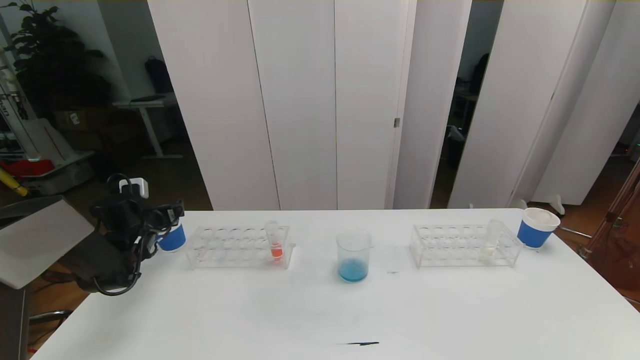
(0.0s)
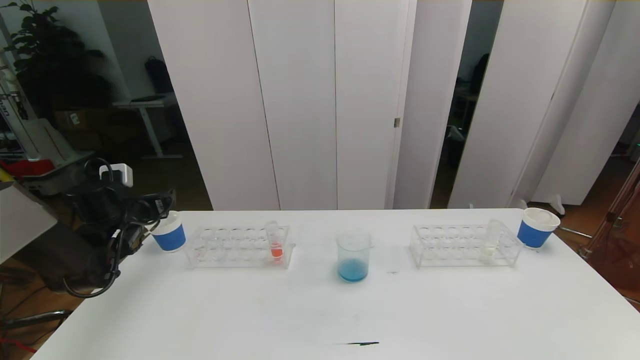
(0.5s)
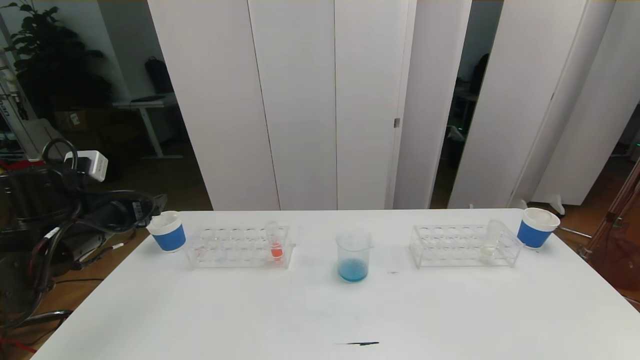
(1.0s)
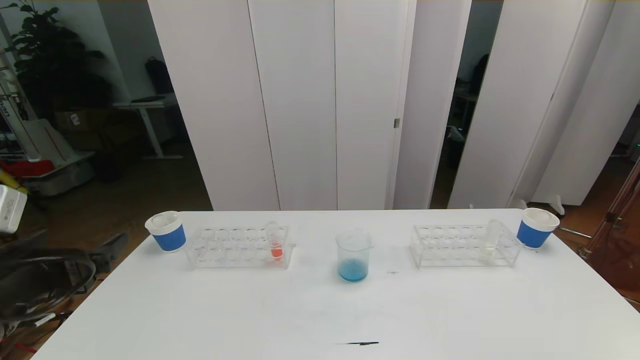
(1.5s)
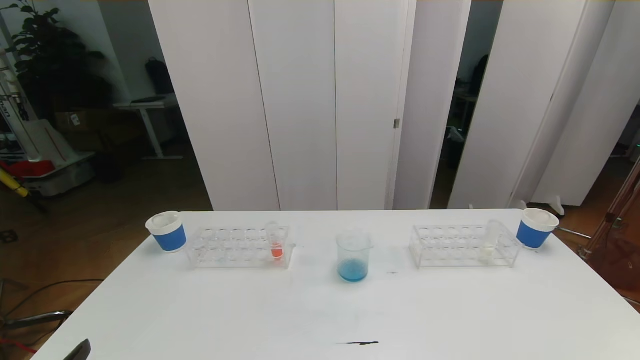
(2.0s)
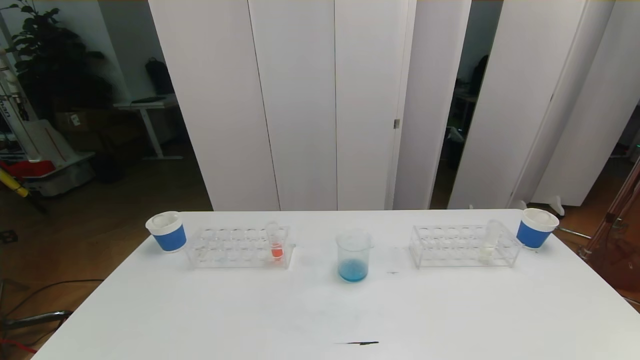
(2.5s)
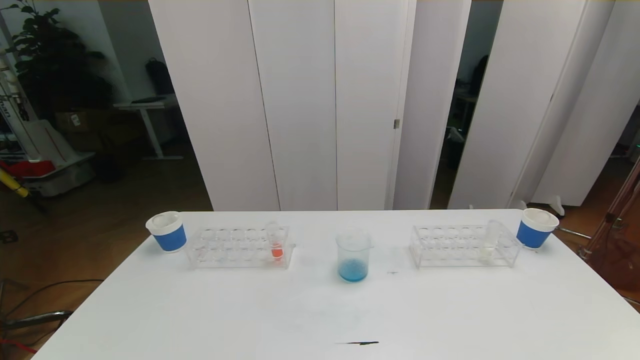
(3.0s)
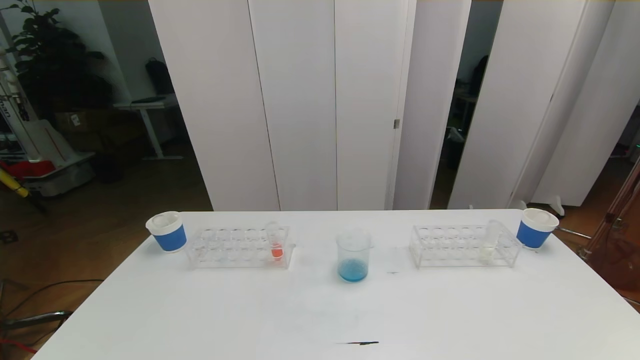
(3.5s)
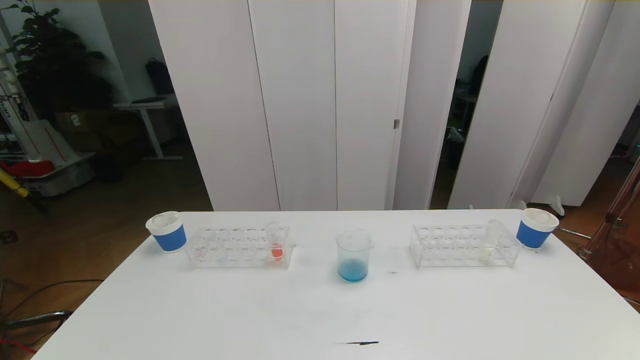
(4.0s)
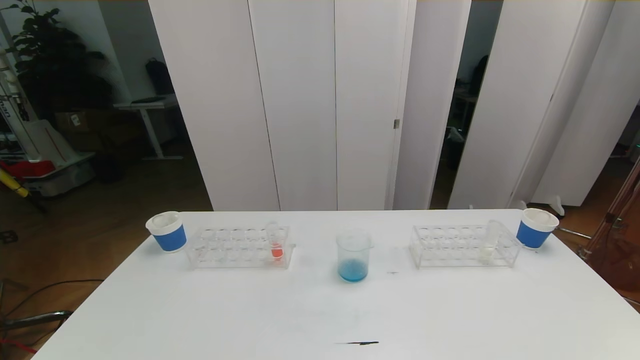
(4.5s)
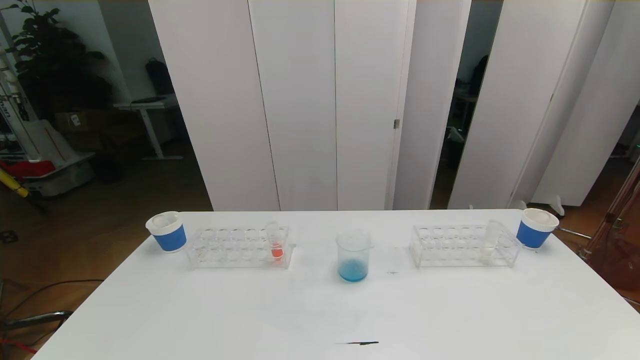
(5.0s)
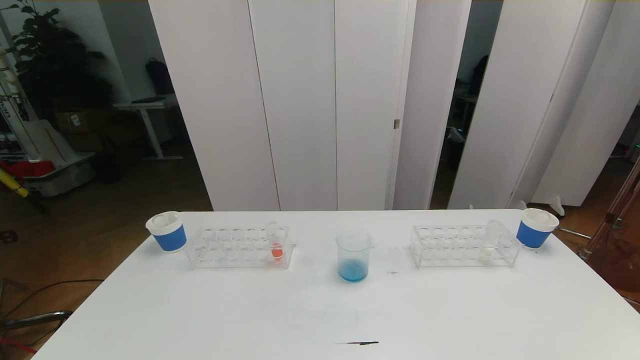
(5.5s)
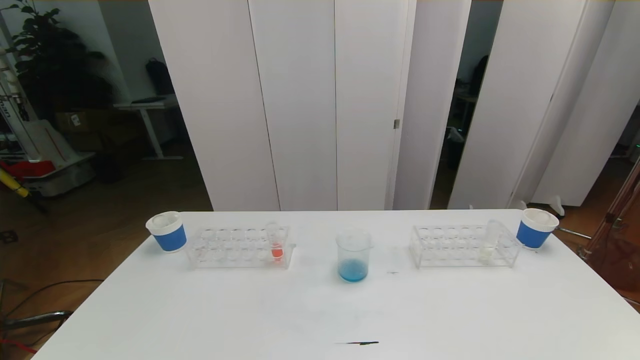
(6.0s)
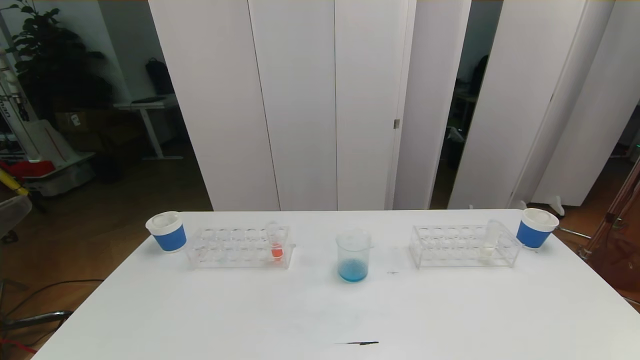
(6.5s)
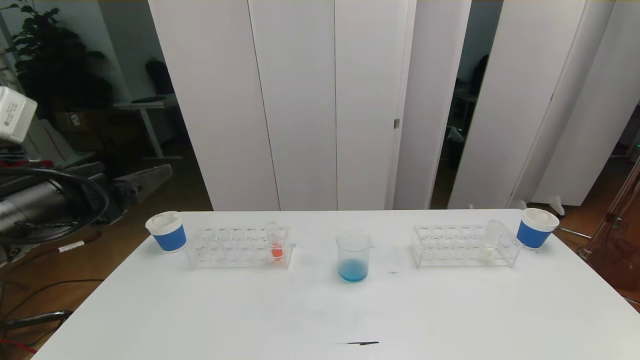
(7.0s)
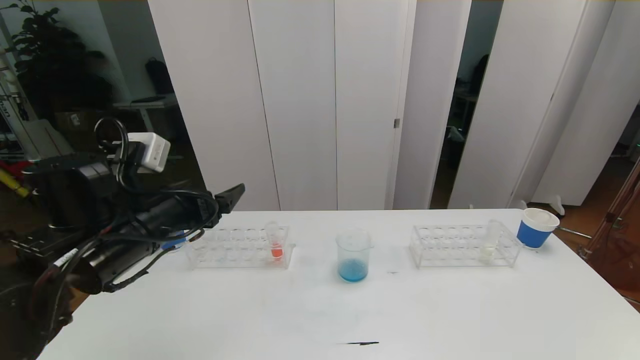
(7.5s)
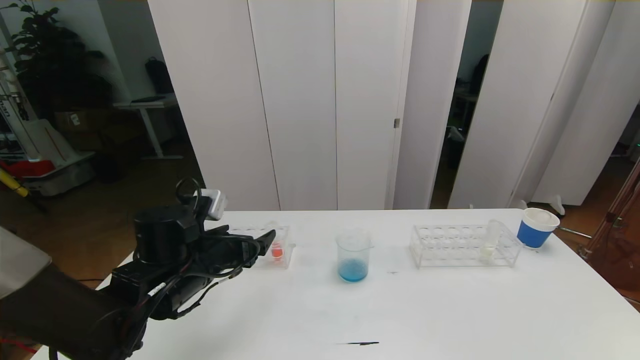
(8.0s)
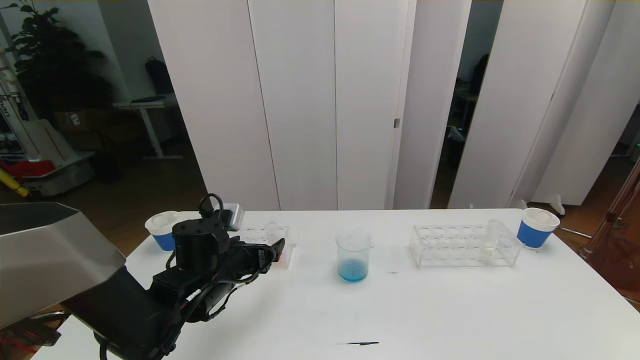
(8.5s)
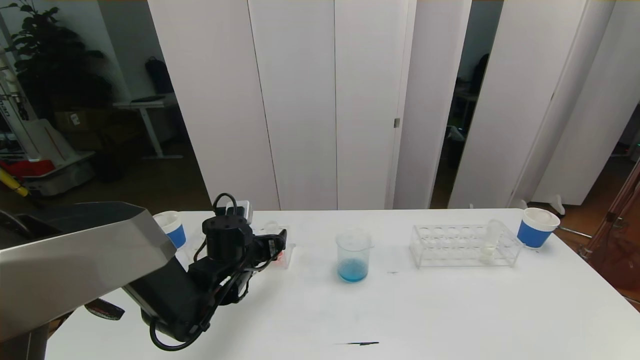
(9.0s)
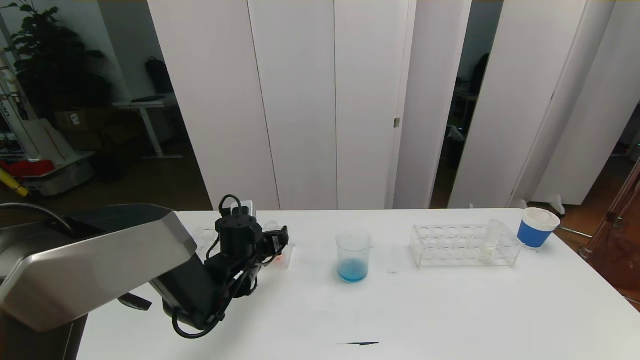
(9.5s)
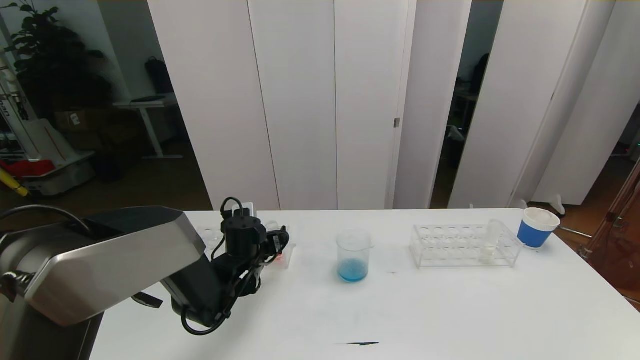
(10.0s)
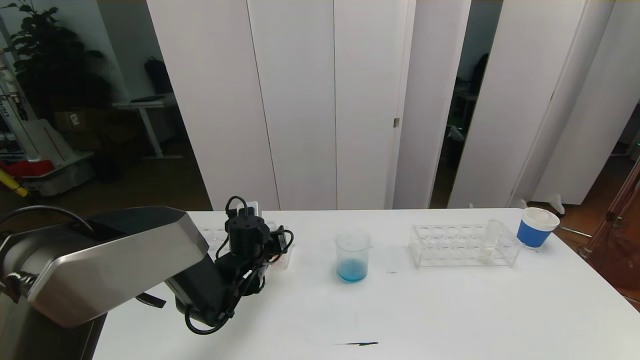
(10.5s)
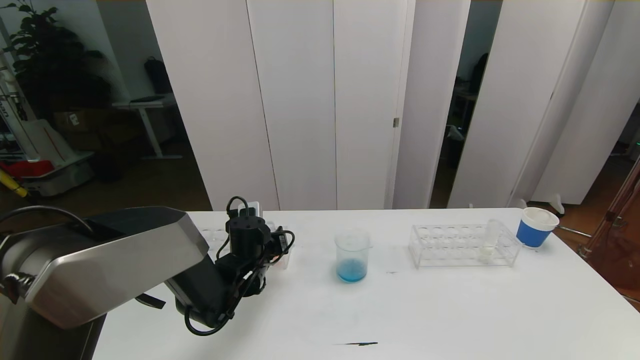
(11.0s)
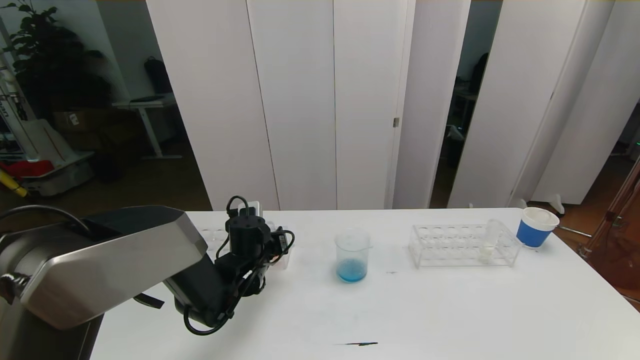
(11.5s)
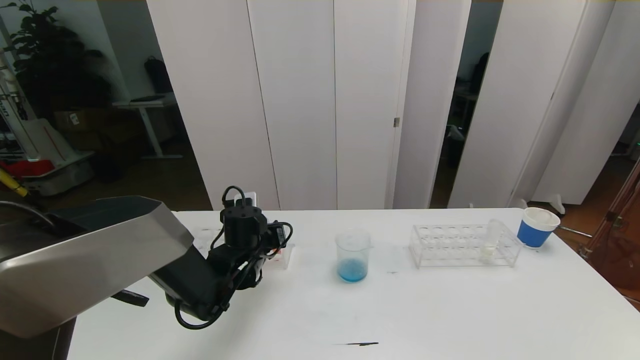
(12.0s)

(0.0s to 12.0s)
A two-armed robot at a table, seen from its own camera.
Task of the whole recording: pick up the test tube with red pigment the test tube with blue pigment and the test tube with white pigment by grippers and pour them into the beaker.
Step, 0.0s - 4.0s: Pour the blue reagent into the graduated cylinder and place the test tube into the paper cup.
0.0s - 2.0s: The left gripper travels backward by approximately 40 cm.
6.0s - 8.0s: The left gripper shifts some 30 cm forward.
8.0s - 10.0s: The left gripper shifts approximately 15 cm forward and downward.
10.0s - 12.0s: The left gripper closes.

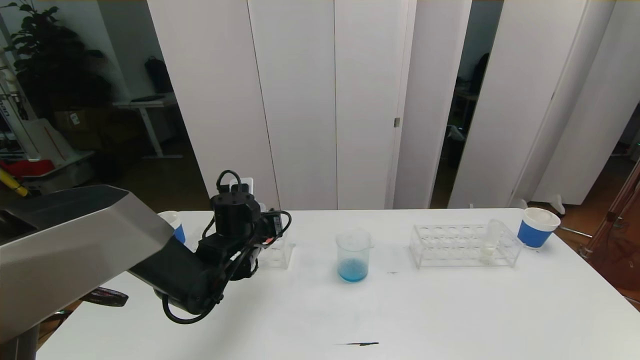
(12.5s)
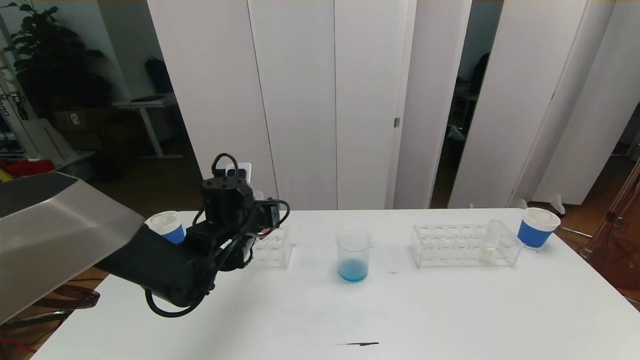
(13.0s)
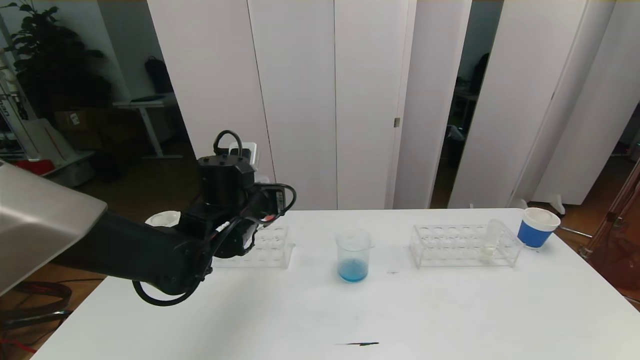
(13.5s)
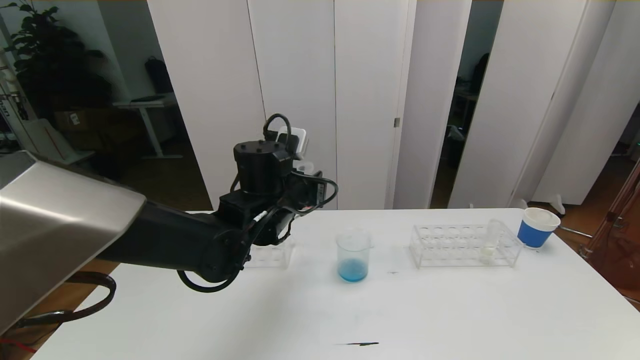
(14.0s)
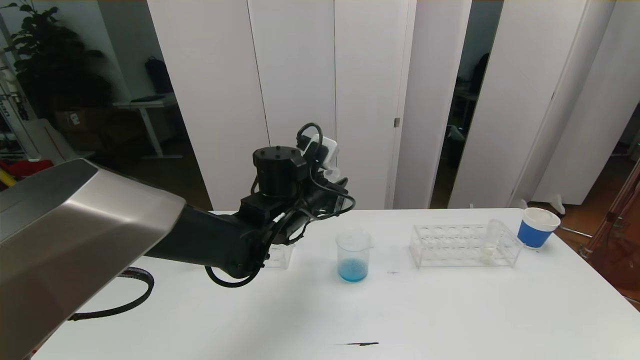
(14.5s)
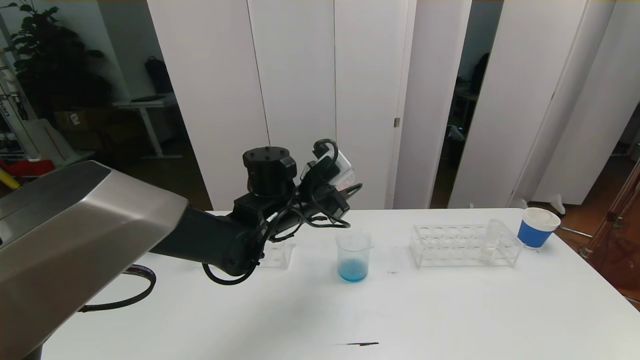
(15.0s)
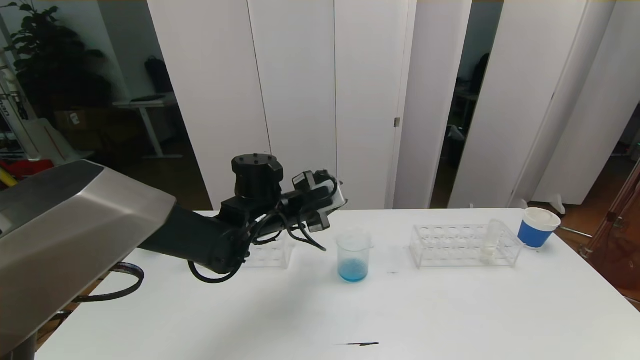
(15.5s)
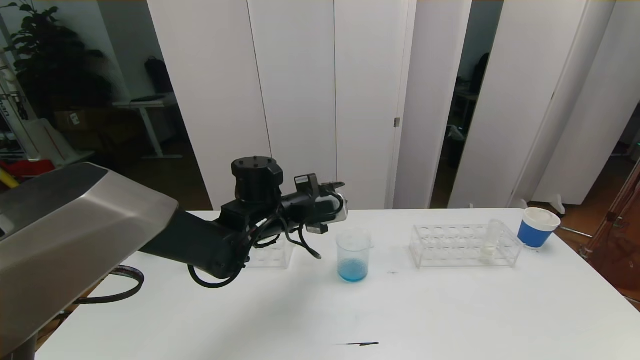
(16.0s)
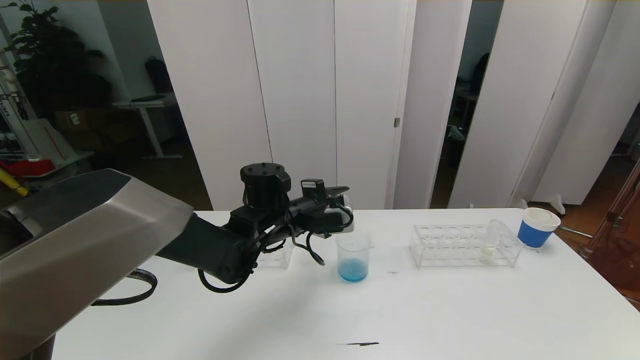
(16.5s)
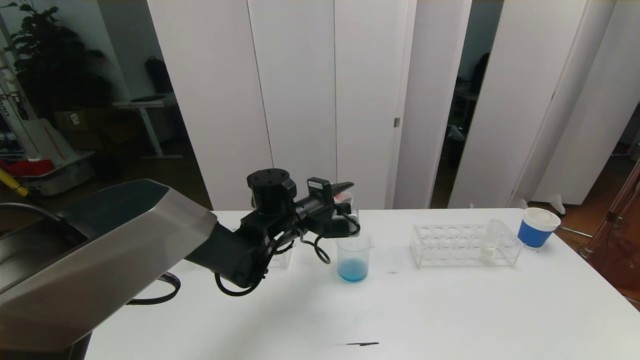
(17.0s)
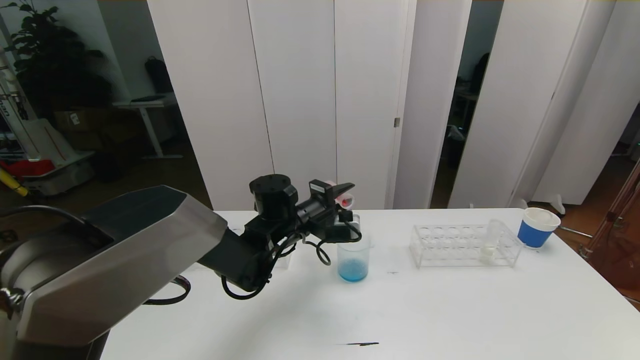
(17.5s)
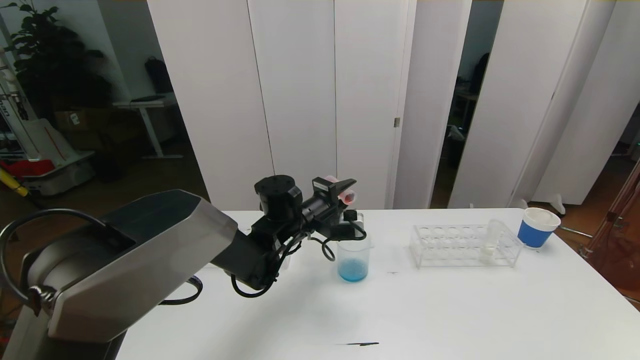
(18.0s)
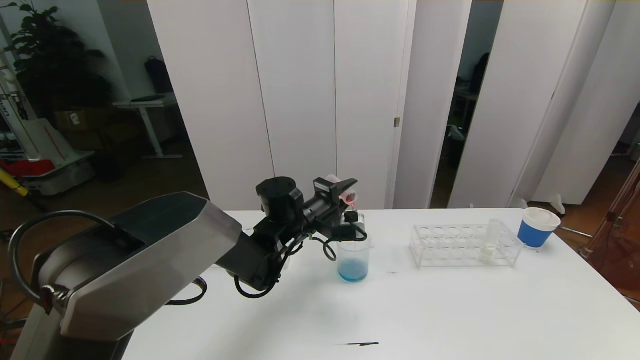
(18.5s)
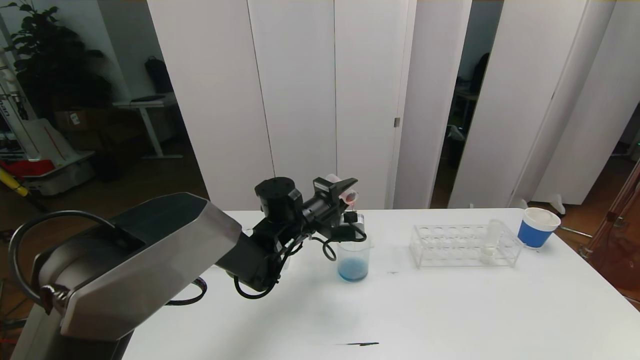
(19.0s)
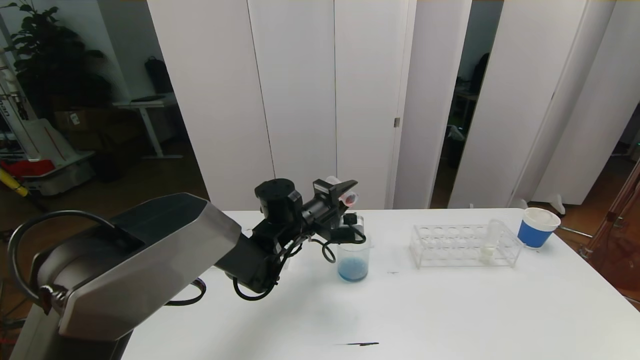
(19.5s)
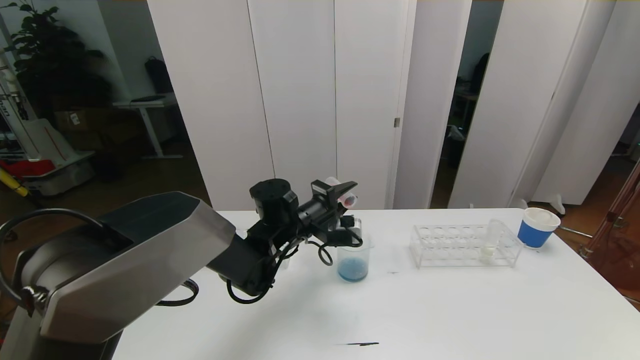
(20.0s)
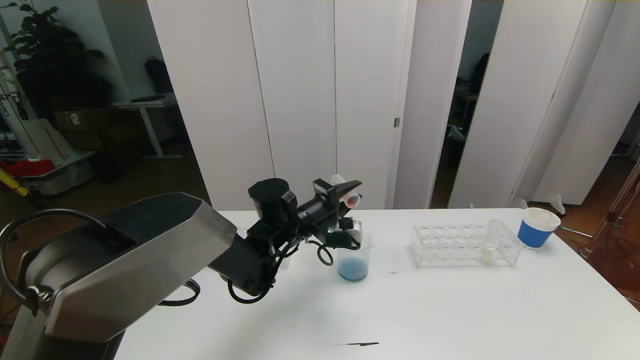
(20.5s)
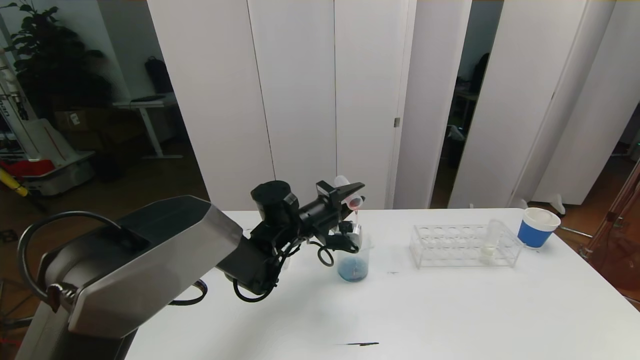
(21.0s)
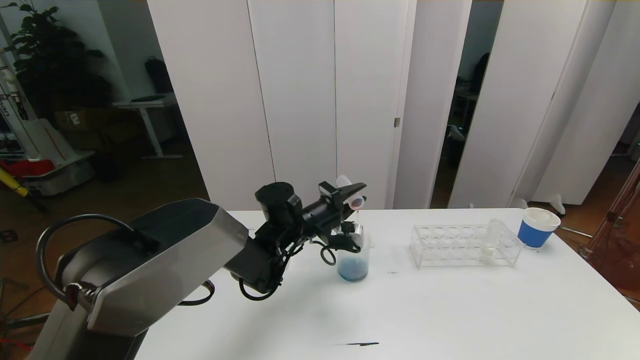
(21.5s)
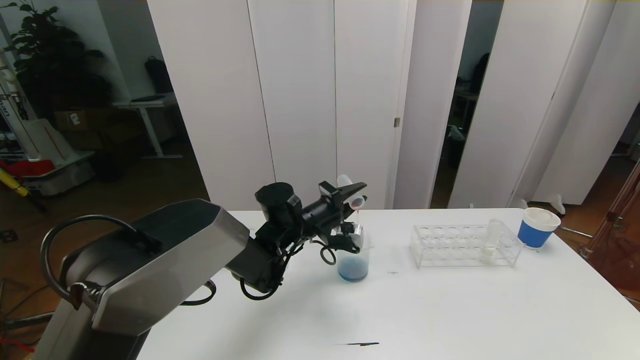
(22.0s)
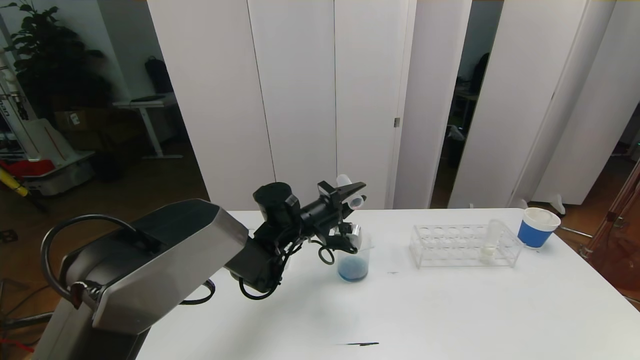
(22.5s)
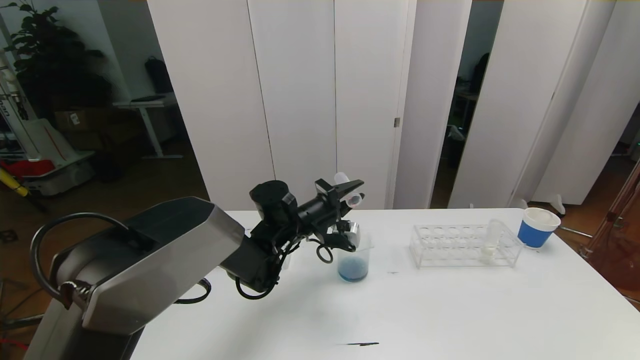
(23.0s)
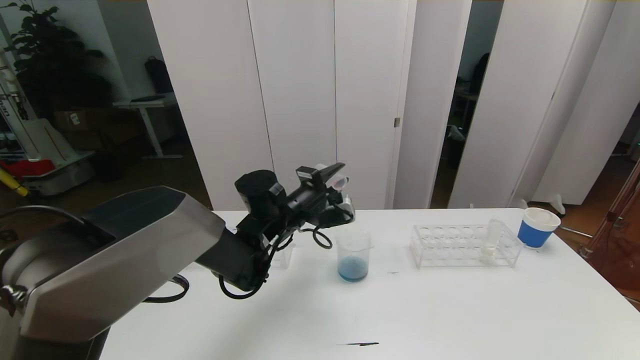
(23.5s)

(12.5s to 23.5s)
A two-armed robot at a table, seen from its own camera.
Task of the whole recording: pick up the test tube with red pigment the test tube with blue pigment and the test tube with white pigment by grippers and pour them into the beaker.
12.5s - 14.5s: The left gripper travels to the right and upward by some 10 cm.
16.0s - 18.0s: The left gripper ends up about 5 cm from where it was.
18.0s - 20.0s: The two grippers keep their place.
20.0s - 23.5s: There are only small adjustments of the grippers.
